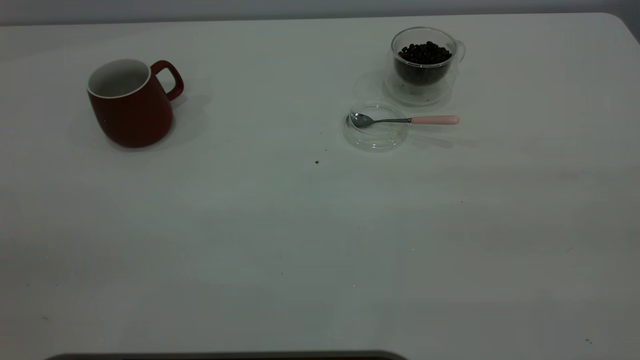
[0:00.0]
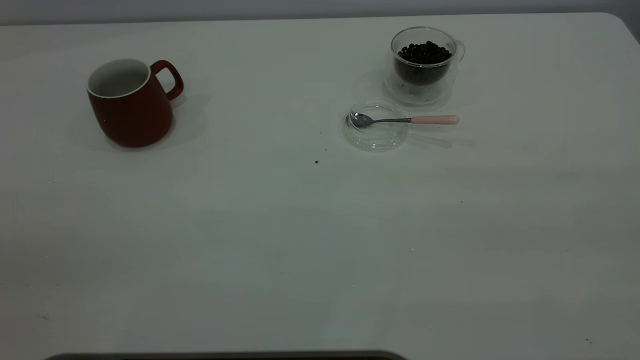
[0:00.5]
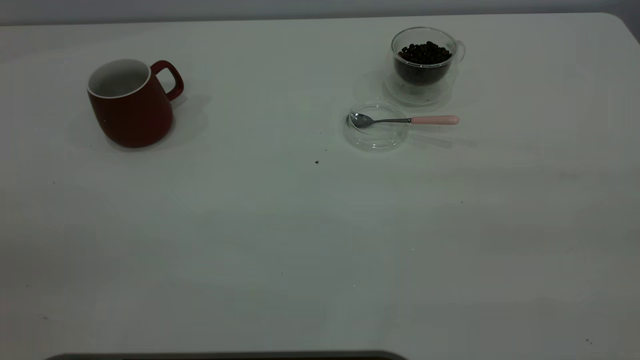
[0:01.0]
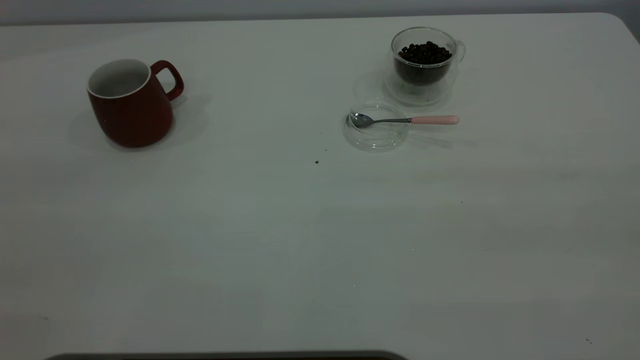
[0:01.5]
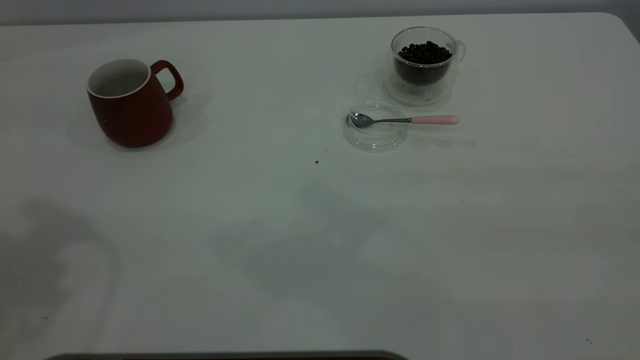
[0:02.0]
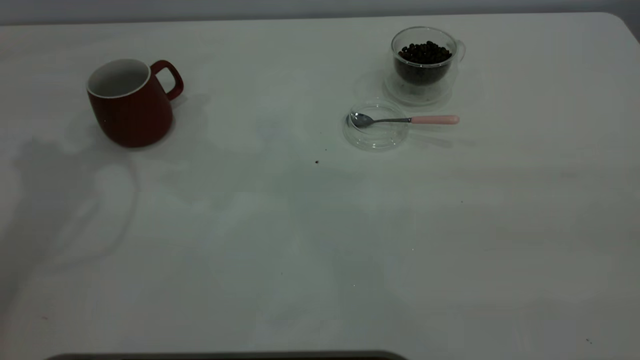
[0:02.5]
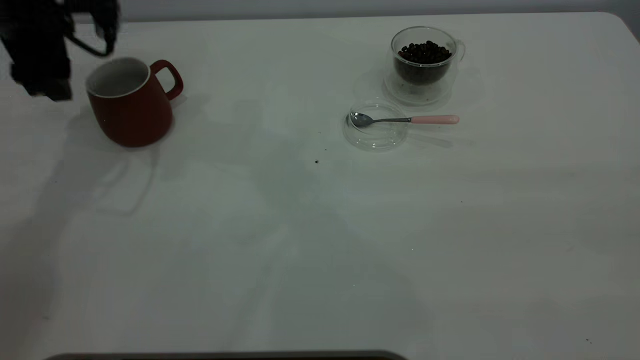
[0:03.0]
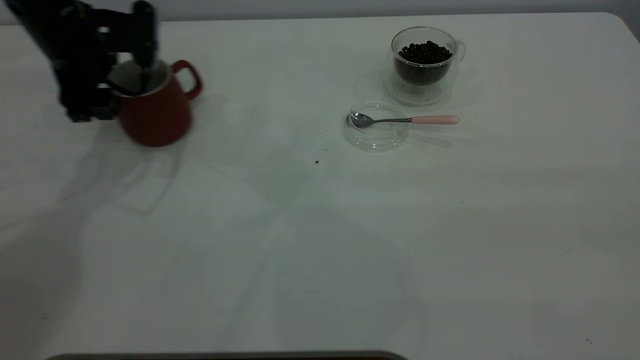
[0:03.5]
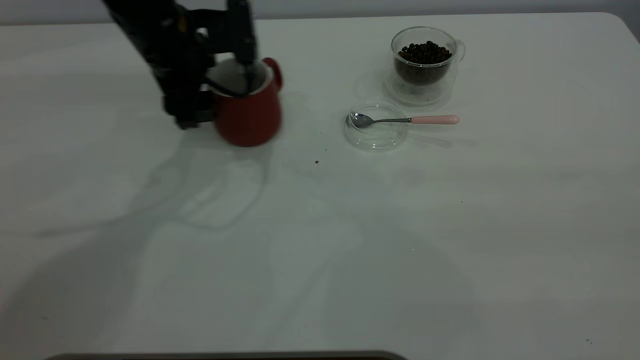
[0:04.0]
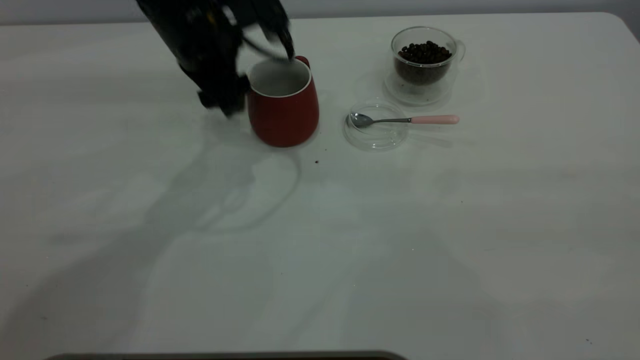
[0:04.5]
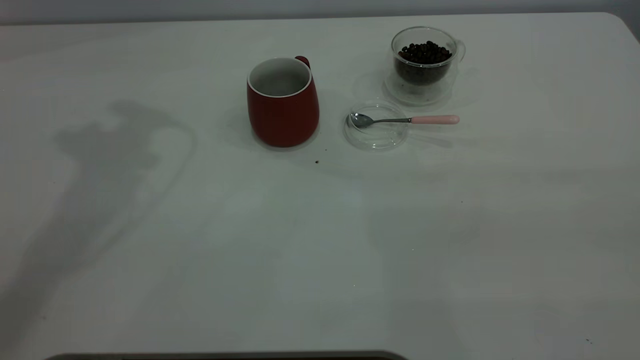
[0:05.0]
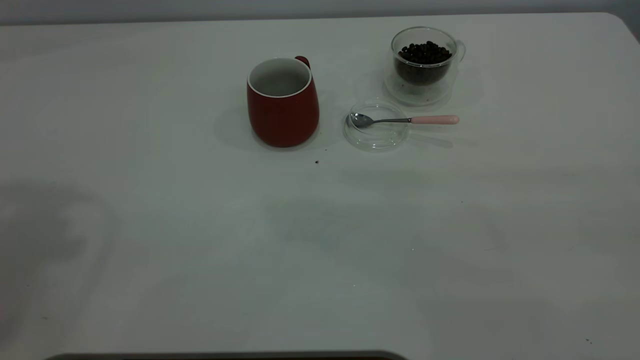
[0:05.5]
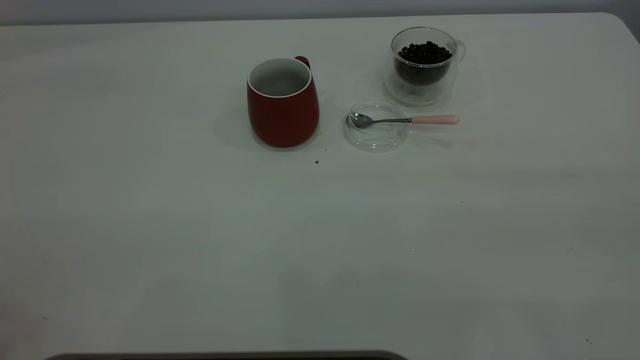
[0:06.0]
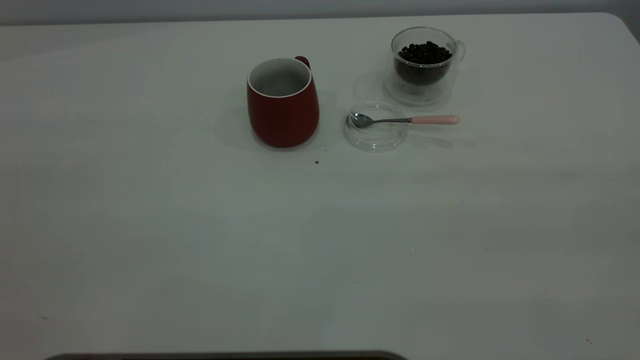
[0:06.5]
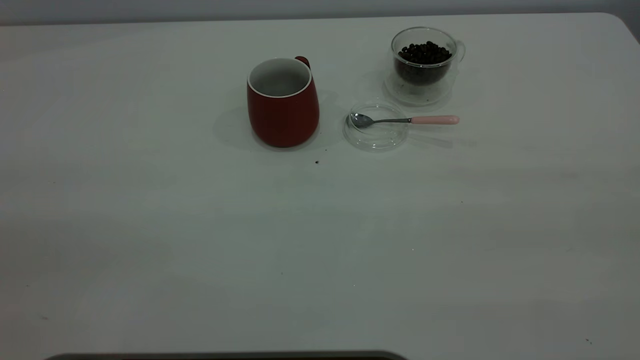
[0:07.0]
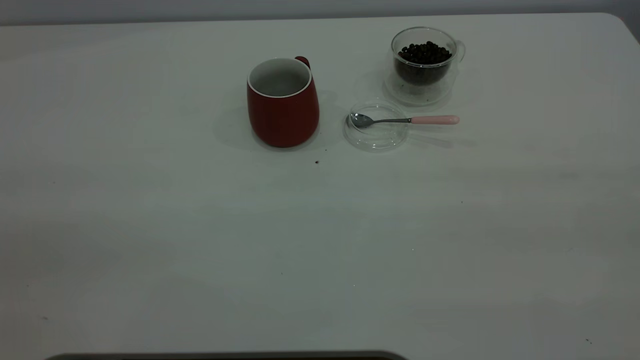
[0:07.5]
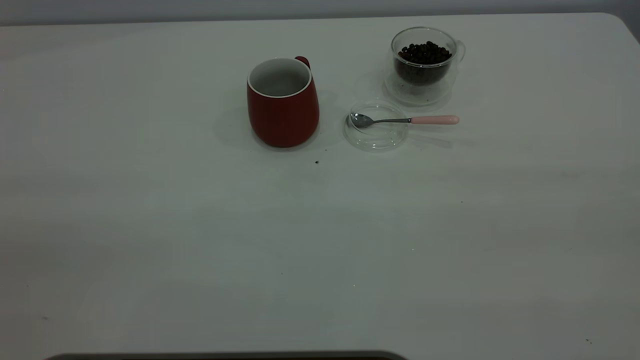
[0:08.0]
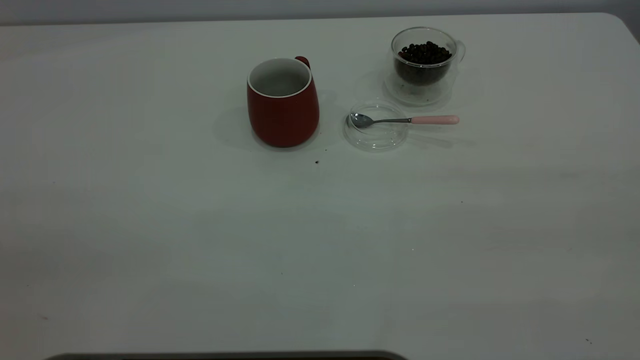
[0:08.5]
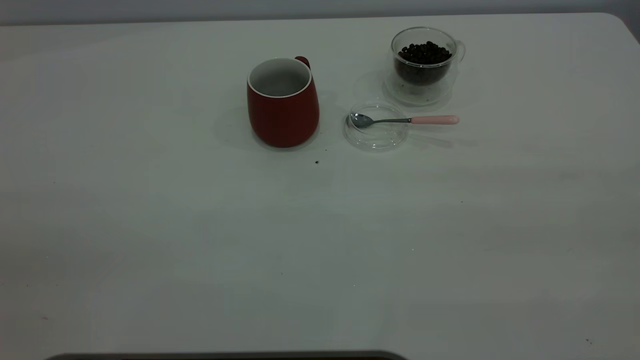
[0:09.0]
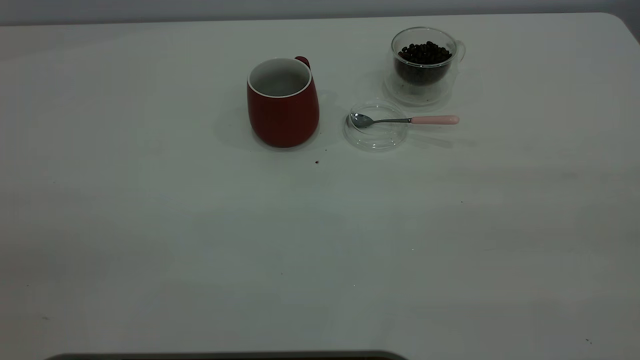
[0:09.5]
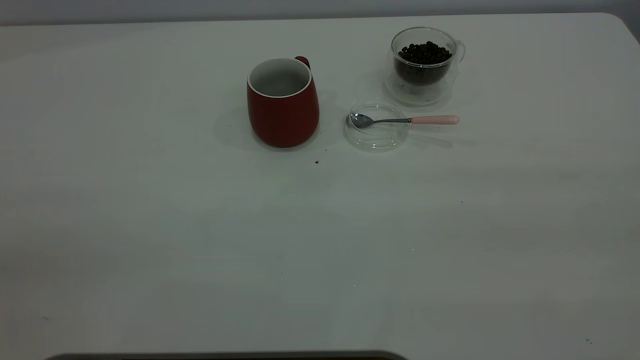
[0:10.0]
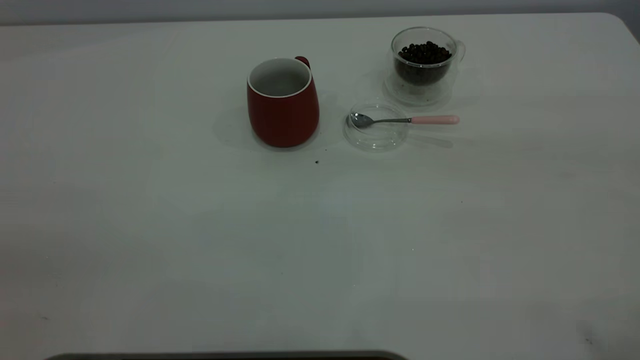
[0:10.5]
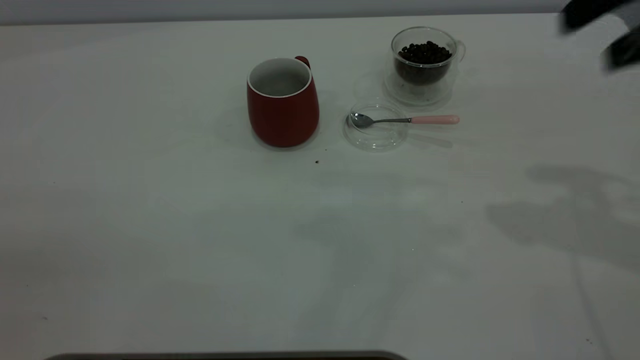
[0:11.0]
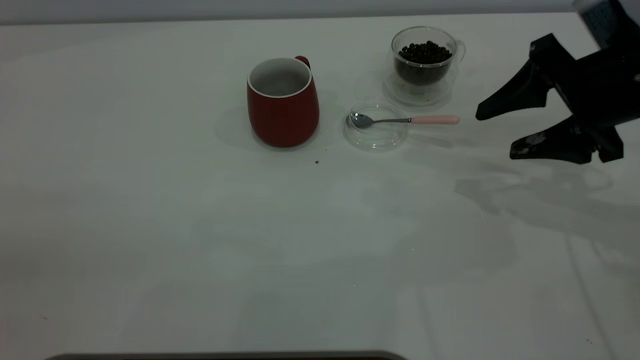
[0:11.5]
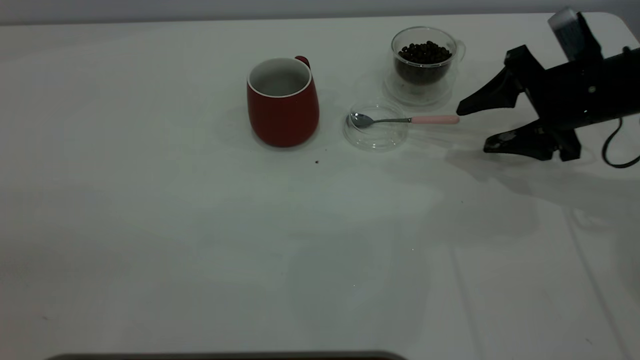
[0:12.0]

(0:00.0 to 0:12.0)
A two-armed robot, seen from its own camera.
Task of the whole recording: the left gripper place the red cup in the center of the table, the right gripper take the pink spoon from the cup lid and scoop out the coffee beans from the coffee cup and put them into the red cup, the right gripper put the spoon back into the cup lid.
Step, 0:00.0 - 0:04.5: Move the cup to the center of view.
0:02.0 - 0:04.0: The left gripper is displaced downward, forward and to the right by some 35 cm.
0:04.0 - 0:06.0: The left gripper is displaced upward and backward by some 50 cm.
0:10.0 - 0:12.0: The right gripper moves forward and downward, approximately 50 cm.

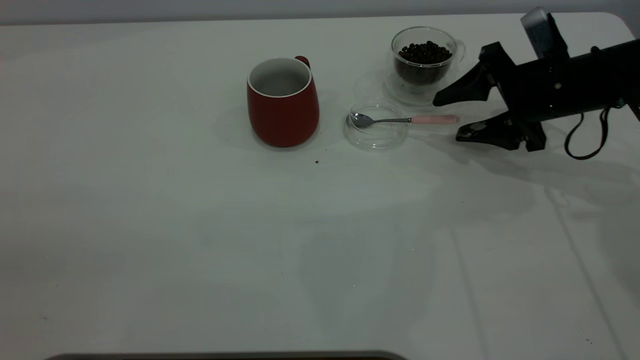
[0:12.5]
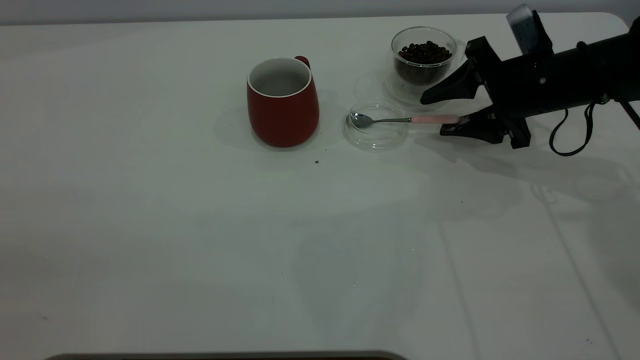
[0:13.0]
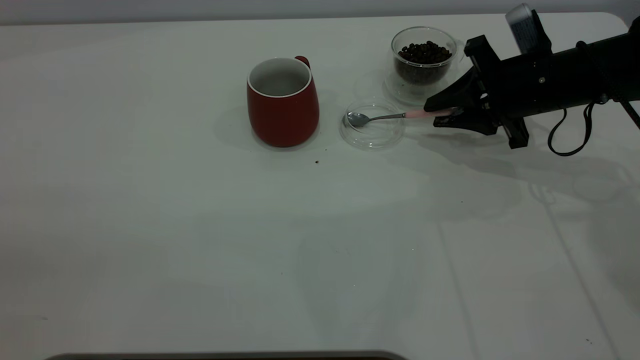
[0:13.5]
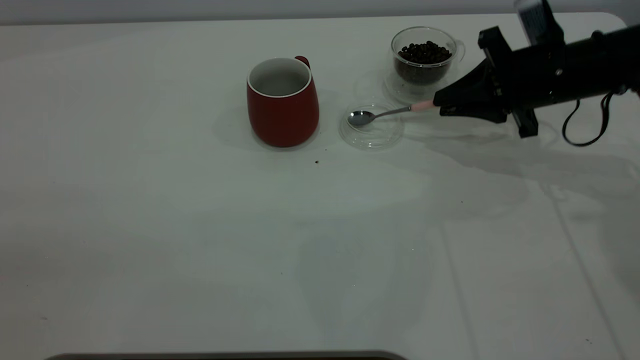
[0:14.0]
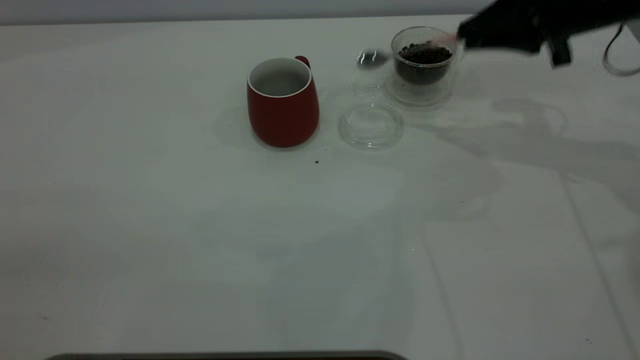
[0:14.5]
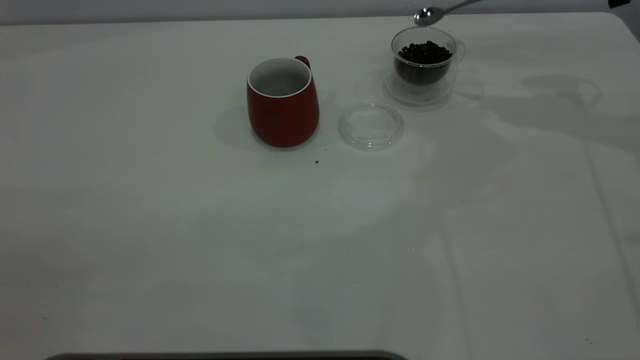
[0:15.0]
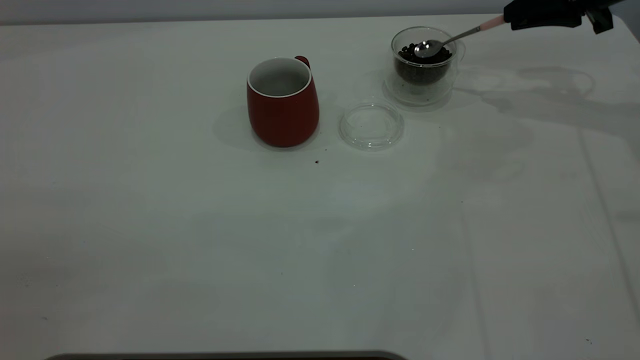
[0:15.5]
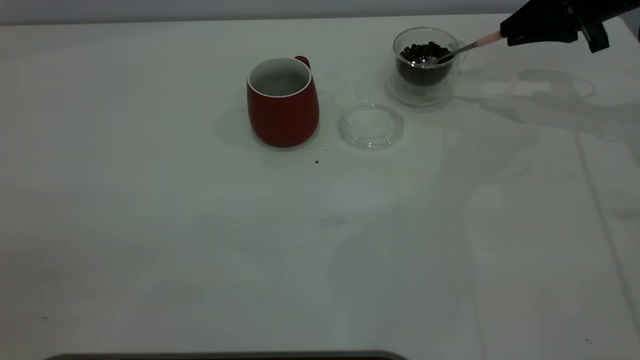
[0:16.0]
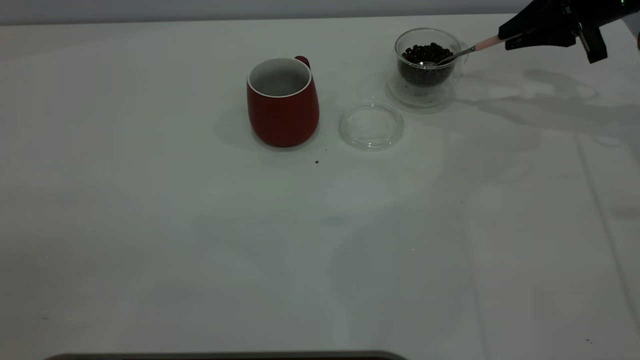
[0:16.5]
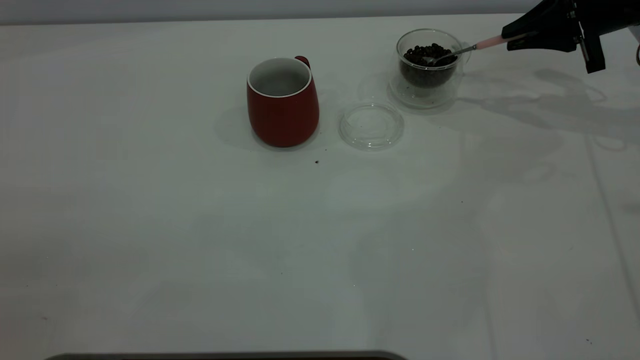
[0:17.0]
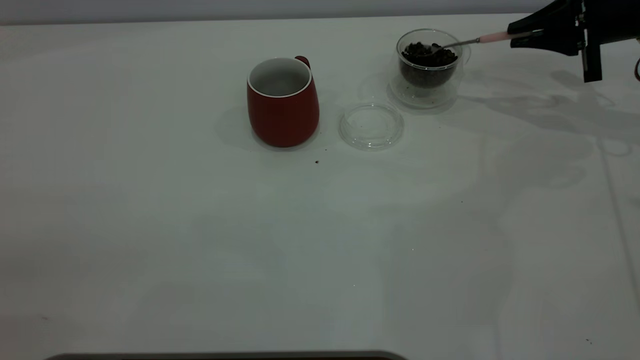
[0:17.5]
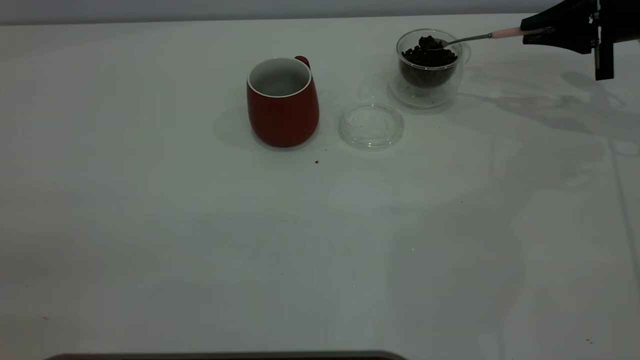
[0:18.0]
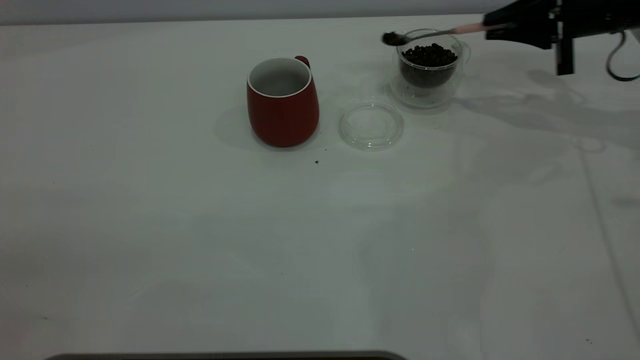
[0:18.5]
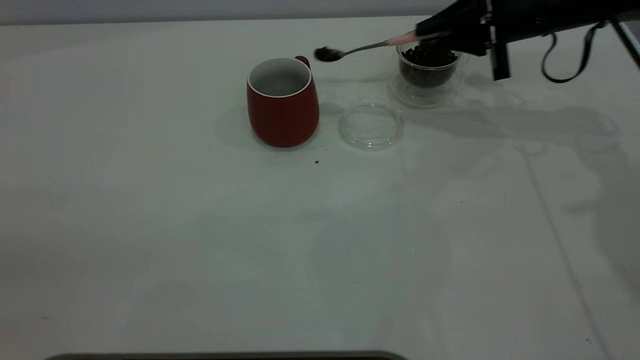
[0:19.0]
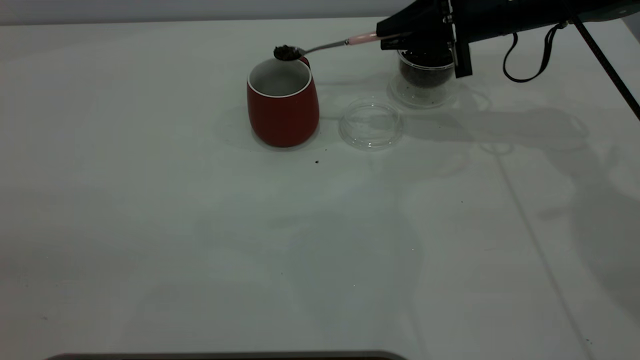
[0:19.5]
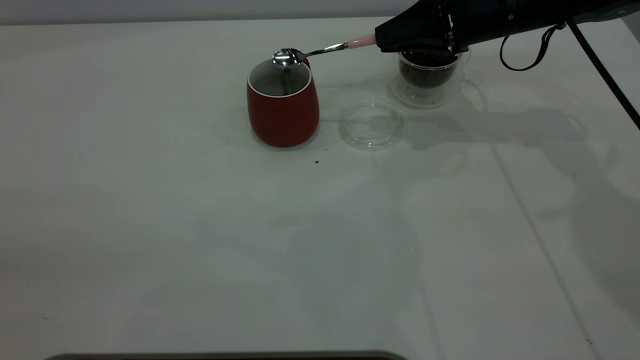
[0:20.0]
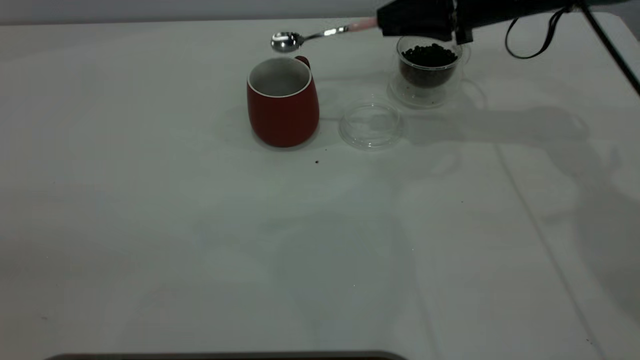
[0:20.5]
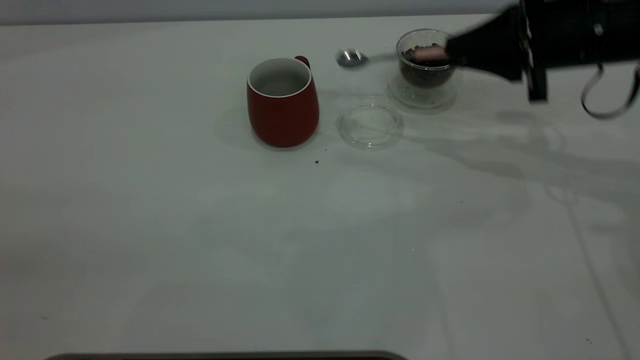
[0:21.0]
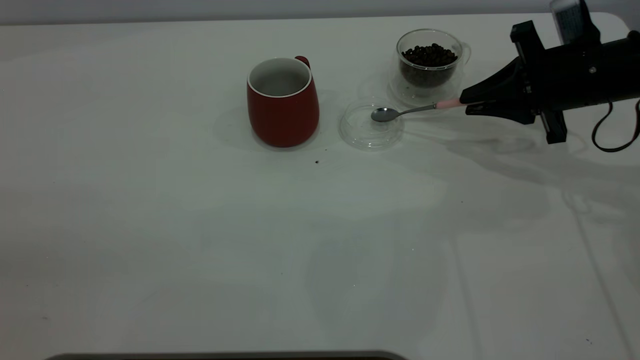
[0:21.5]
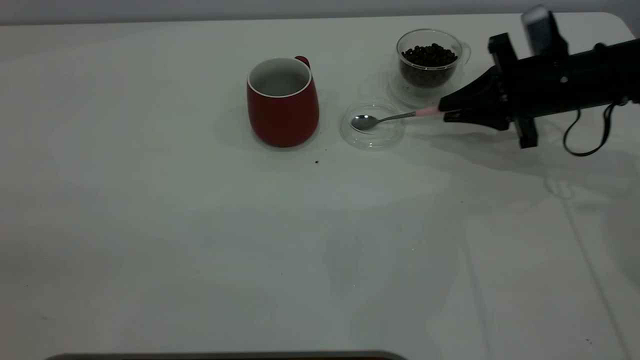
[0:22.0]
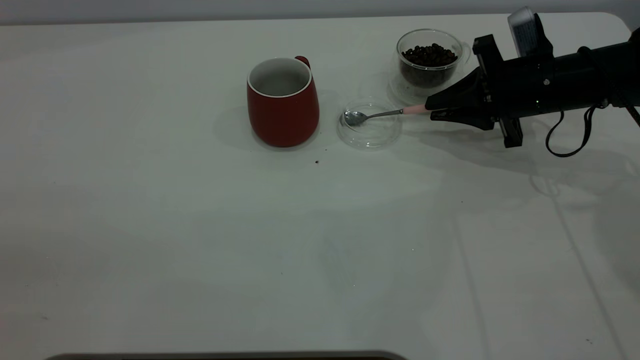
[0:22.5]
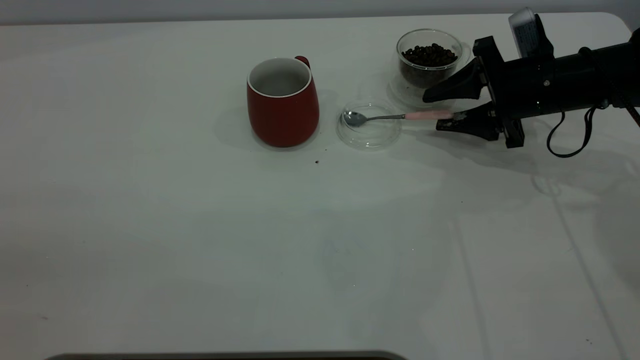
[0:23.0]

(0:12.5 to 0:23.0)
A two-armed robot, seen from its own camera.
Task of the whole recording: the left gripper place the red cup in the center of the table, the right gripper take the pink spoon from the cup lid and scoop out the coffee beans from the coffee cup and put them into the red cup, the right gripper put the spoon back into the cup lid.
Step, 0:14.5 - 0:20.0: Scoop a spoonful of beans into the cup.
0:12.5 - 0:14.5: The right gripper moves upward, about 10 cm, and closes.
0:14.5 - 0:16.5: The right gripper moves forward and to the right, about 10 cm.
0:16.5 - 0:19.0: The right gripper shifts some 10 cm to the left.
0:19.0 - 0:21.0: The right gripper is displaced backward by some 10 cm.
0:21.0 - 0:23.0: The right gripper travels downward by some 5 cm, and opens its fingers.
